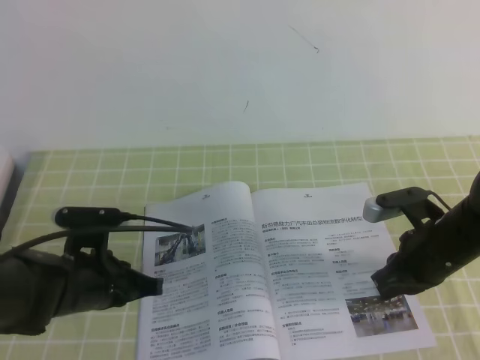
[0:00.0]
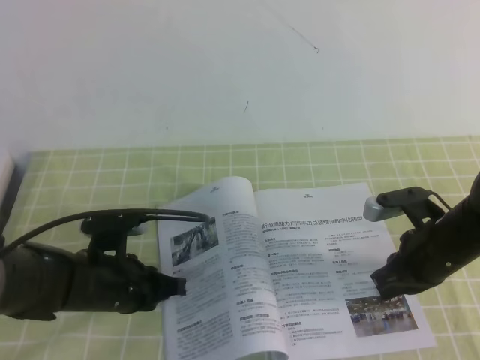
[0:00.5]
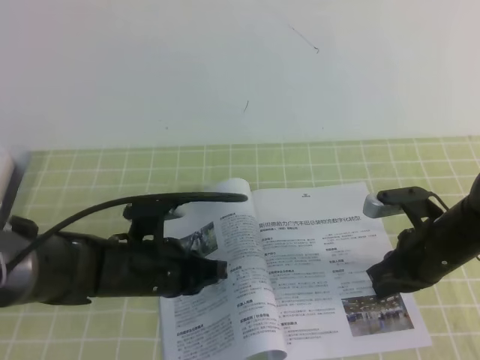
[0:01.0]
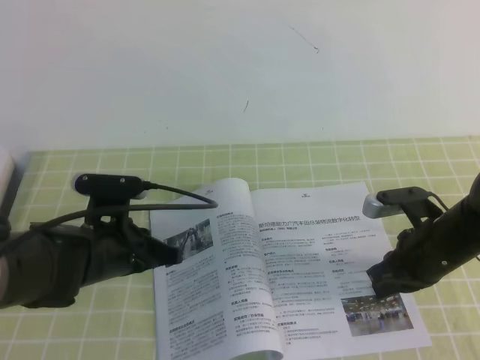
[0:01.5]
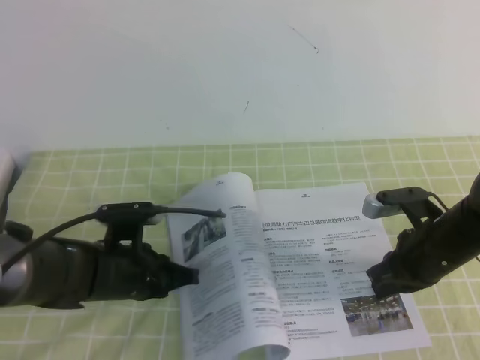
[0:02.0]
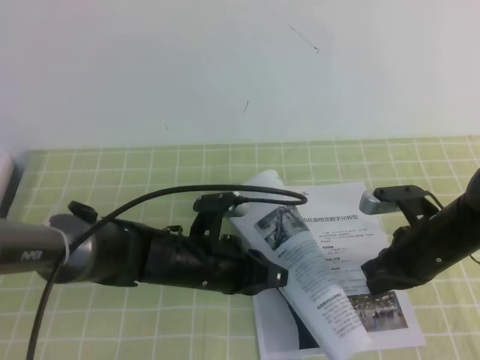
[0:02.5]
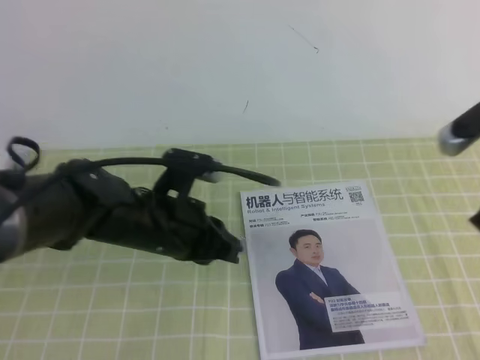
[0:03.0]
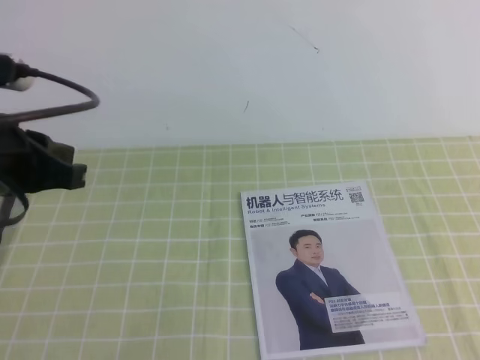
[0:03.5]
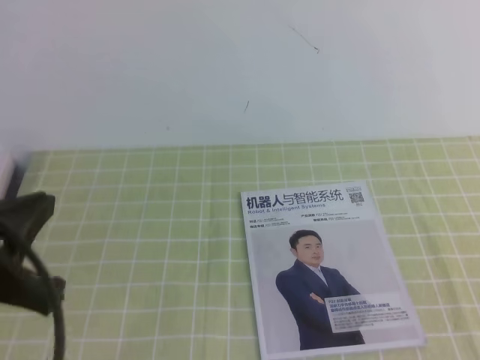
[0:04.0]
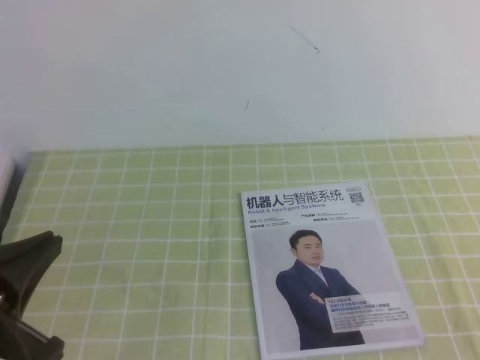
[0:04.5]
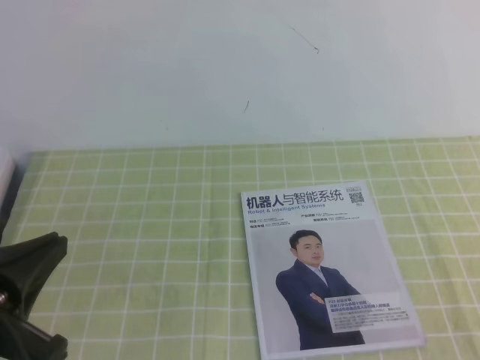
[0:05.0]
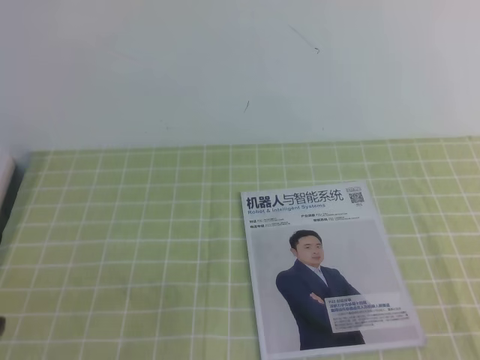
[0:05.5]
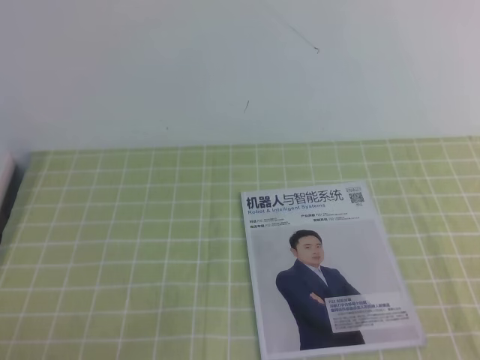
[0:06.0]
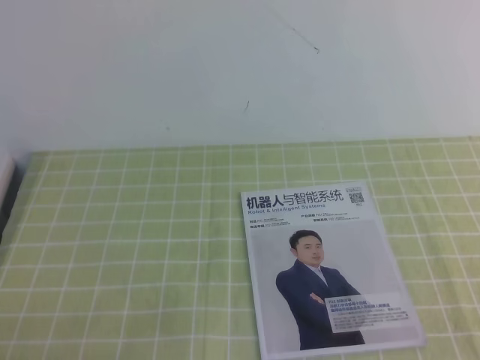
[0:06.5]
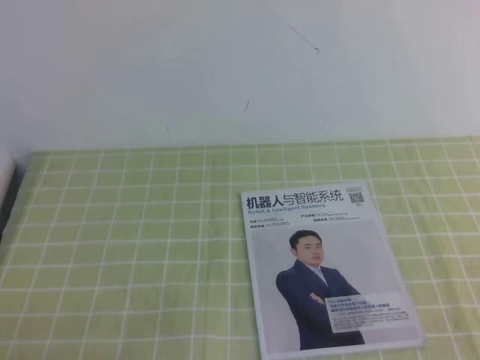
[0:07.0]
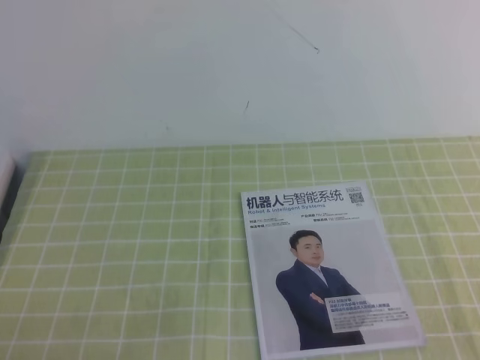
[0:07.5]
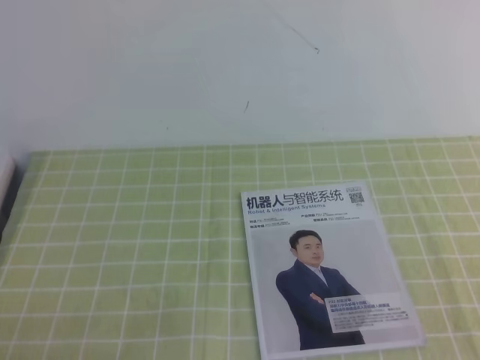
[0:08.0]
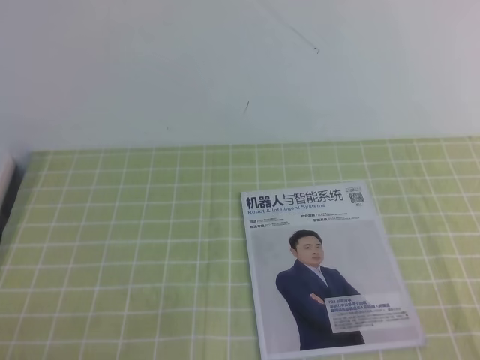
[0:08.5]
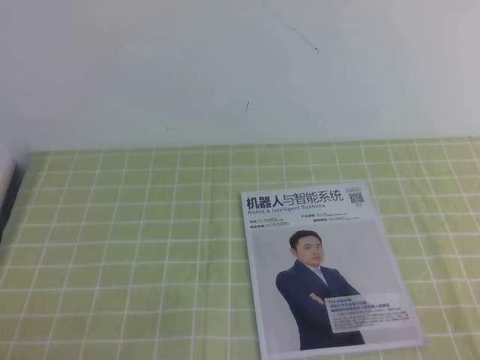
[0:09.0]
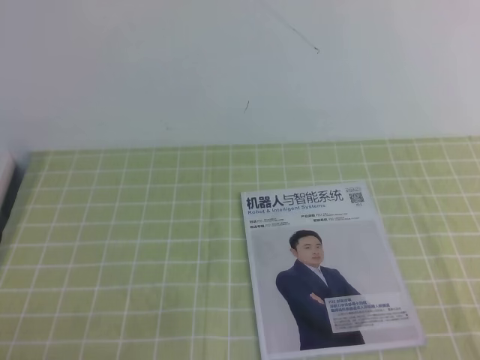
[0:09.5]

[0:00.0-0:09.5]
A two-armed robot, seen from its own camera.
Task of the whole recording: on the green tablecloth, hold the book with one hand and close it with the other.
Step, 0:00.0 to 0:09.5: Close the open book.
0:00.0 to 0:02.0: The left gripper ends up some 5 cm from where it was.
0:02.0 to 0:04.0: The left gripper travels upward and backward by roughly 25 cm. Meanwhile the right gripper is displaced backward, upward and to the right by roughly 35 cm.
0:04.0 to 0:05.5: The left gripper goes some 10 cm backward and downward.
